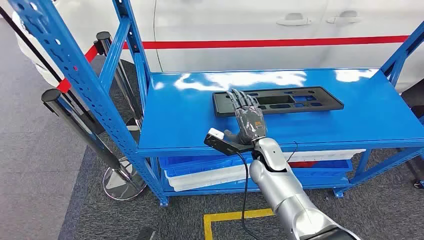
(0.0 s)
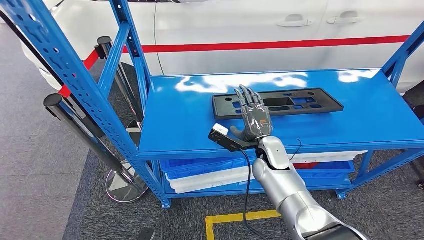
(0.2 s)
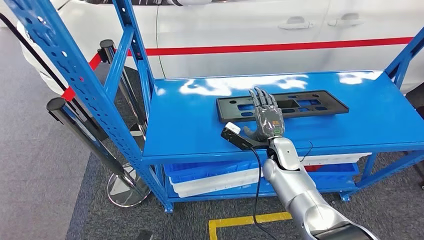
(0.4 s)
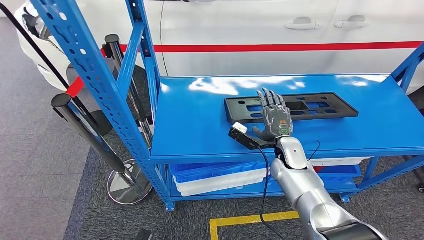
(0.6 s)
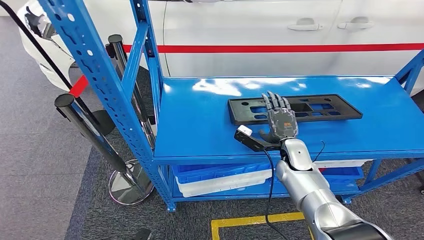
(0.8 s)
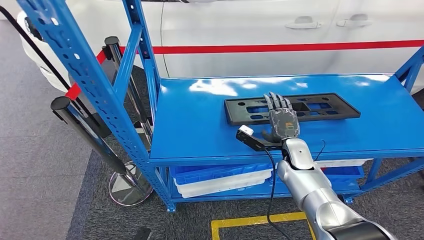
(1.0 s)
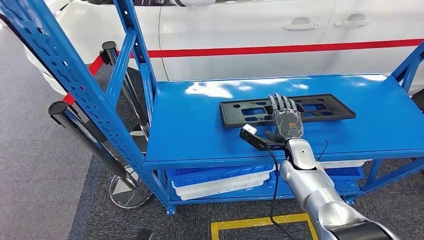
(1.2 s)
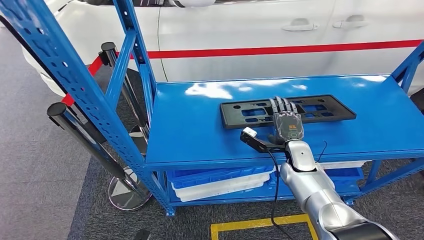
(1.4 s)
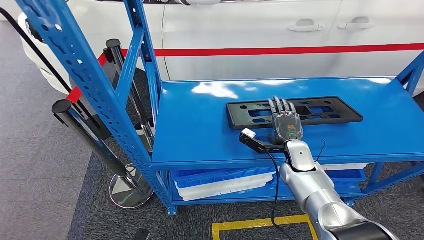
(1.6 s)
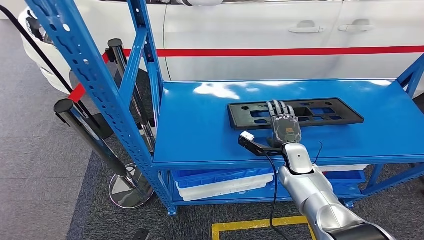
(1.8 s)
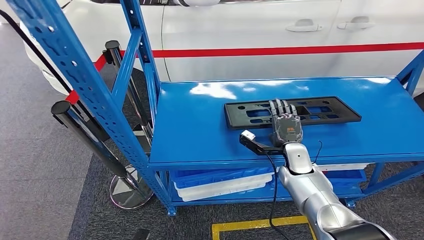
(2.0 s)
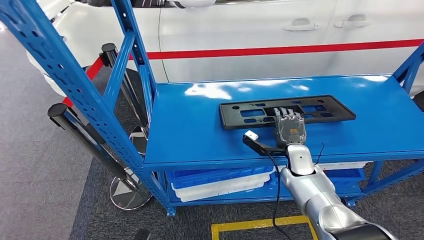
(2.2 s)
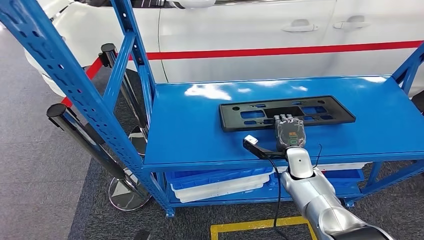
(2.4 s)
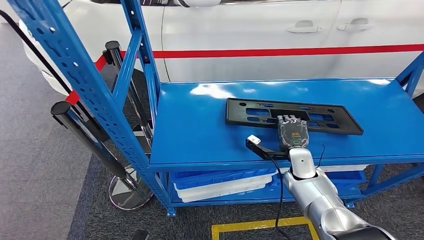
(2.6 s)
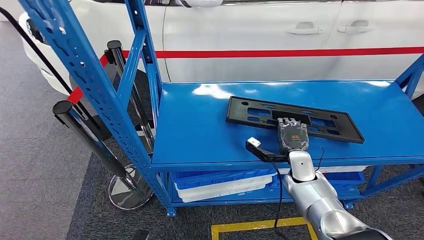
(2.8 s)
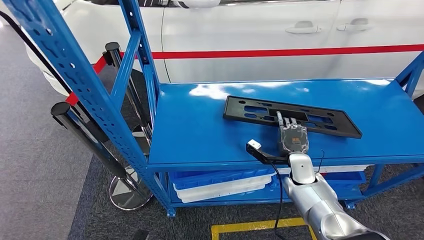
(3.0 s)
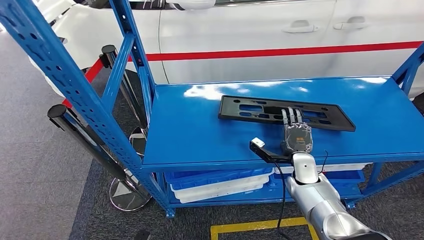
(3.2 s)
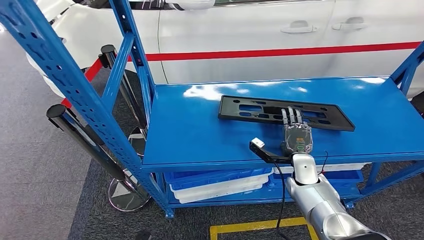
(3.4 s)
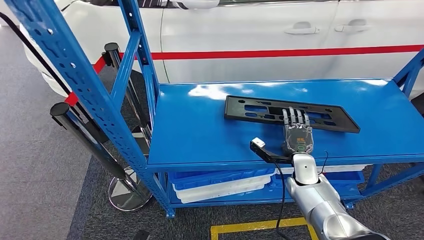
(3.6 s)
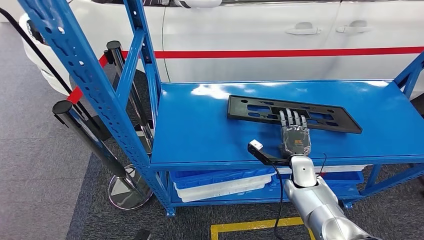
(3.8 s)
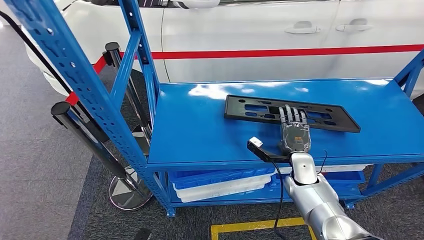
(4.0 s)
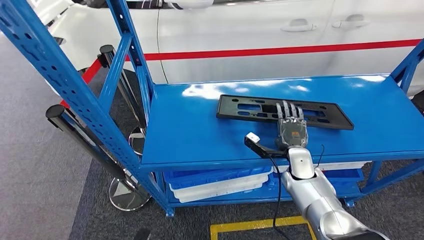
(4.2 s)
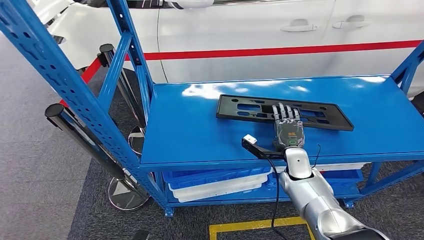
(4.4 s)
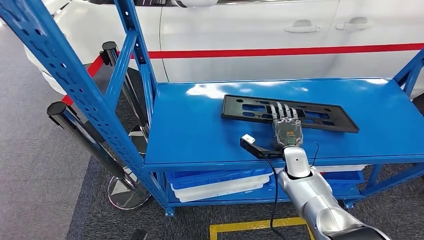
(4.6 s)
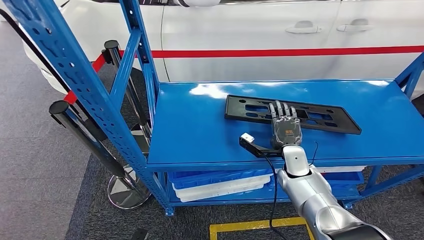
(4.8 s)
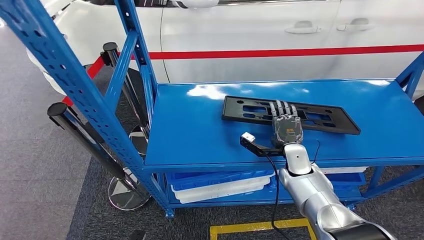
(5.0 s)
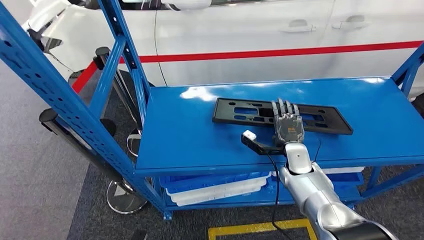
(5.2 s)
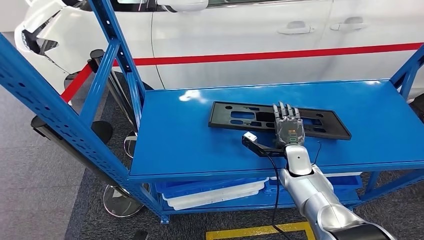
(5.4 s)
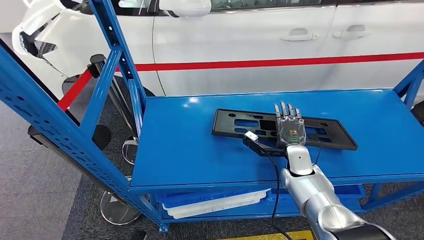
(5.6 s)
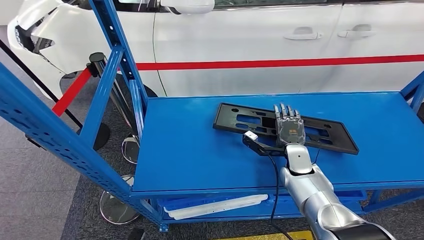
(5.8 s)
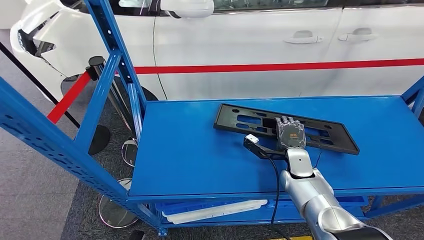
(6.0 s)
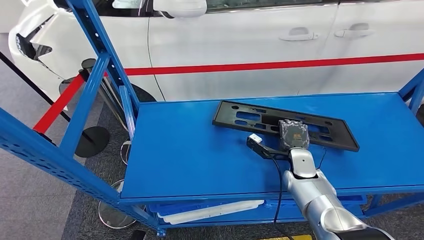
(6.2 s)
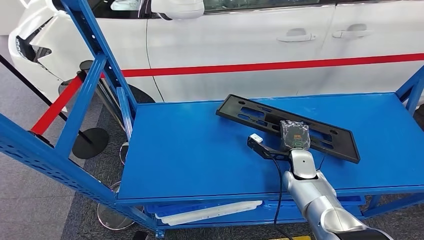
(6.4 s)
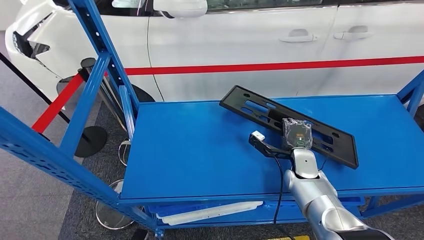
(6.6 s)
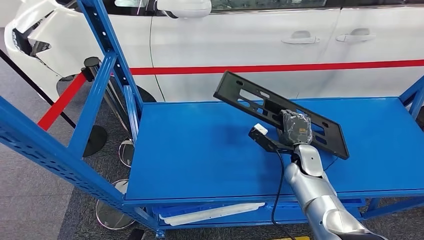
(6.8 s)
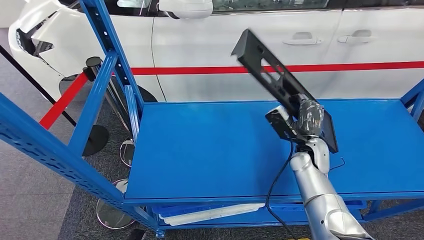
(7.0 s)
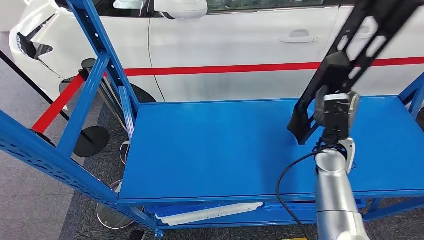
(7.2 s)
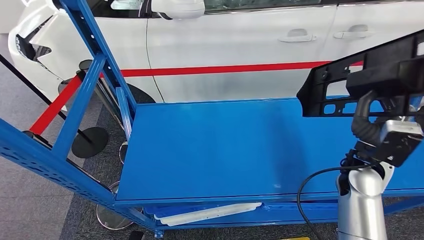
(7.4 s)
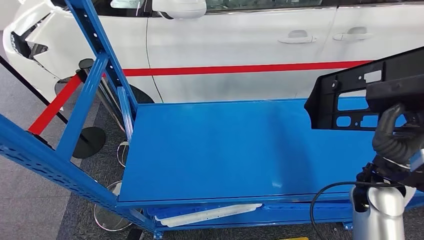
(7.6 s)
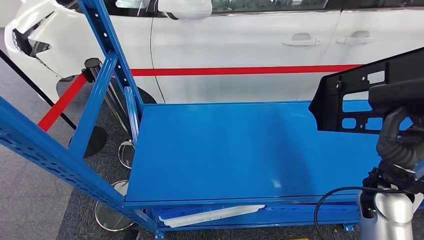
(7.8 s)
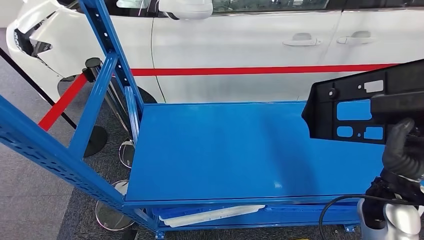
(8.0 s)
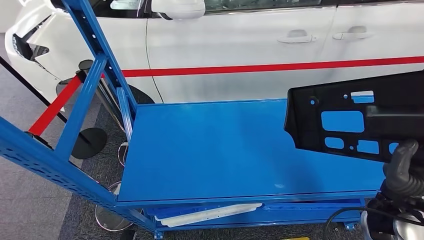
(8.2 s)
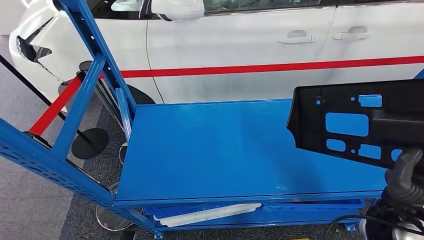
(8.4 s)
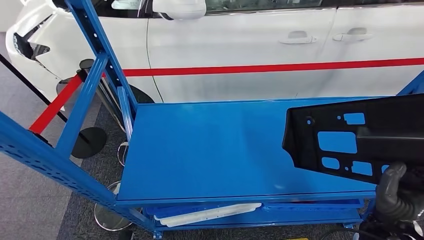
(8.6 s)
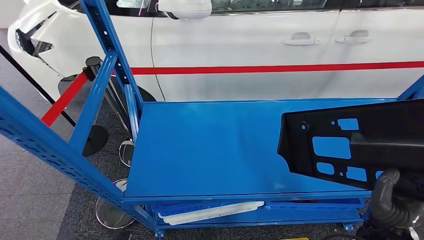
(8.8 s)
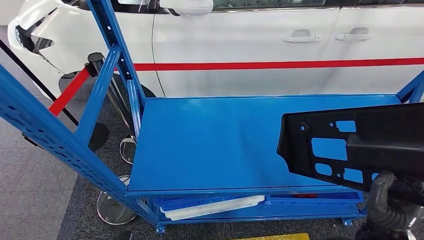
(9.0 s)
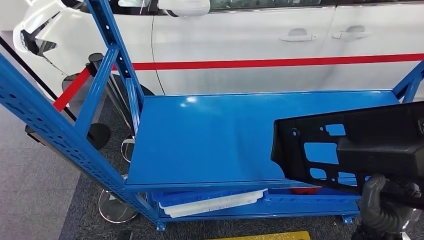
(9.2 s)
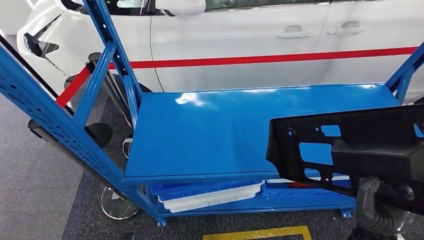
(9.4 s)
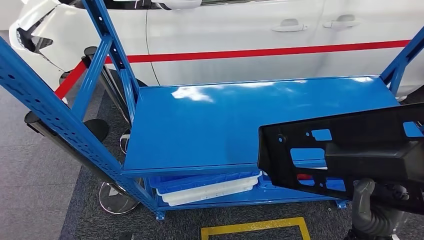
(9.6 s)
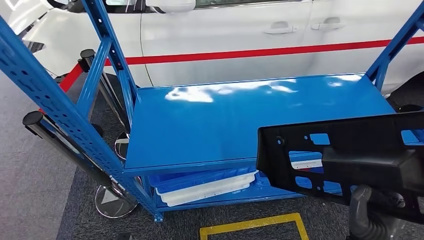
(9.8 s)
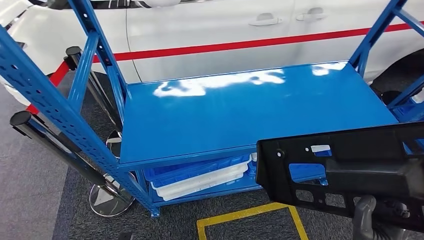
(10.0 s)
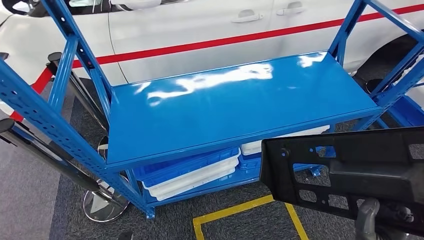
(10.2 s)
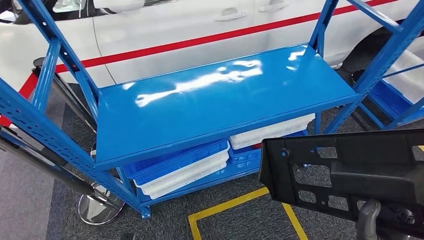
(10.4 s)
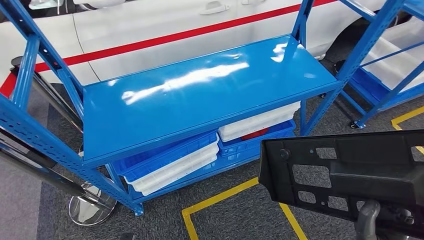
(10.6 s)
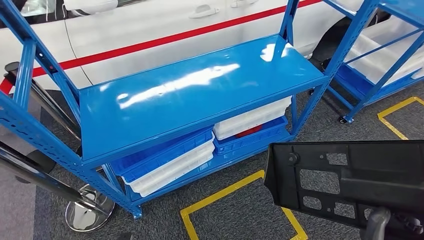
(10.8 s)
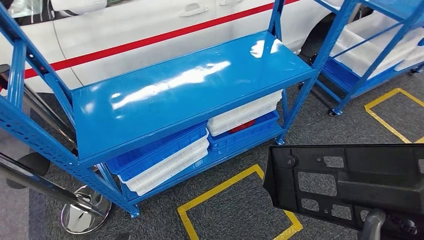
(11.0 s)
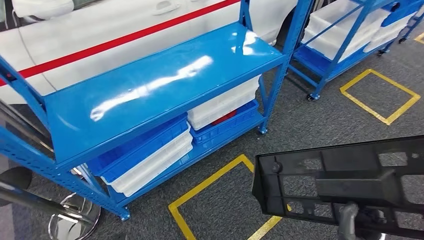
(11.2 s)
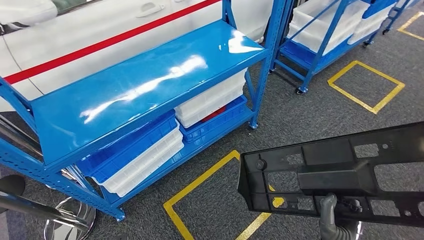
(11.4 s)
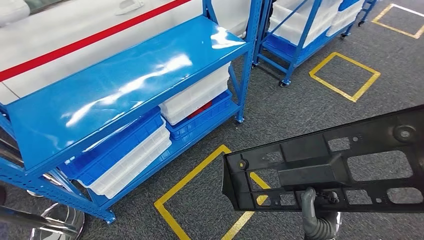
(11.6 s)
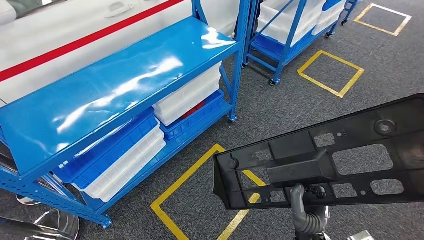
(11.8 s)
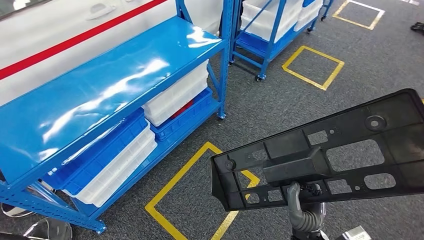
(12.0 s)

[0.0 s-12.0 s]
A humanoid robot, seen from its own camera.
Step, 0.0 to 7.4 s: Pick up the large material from the shelf.

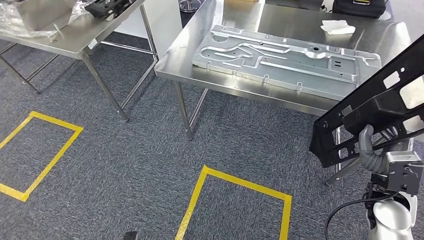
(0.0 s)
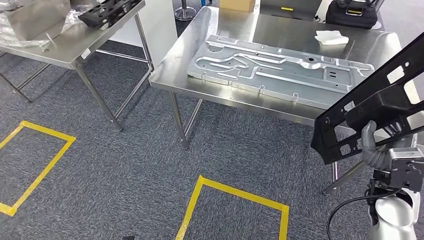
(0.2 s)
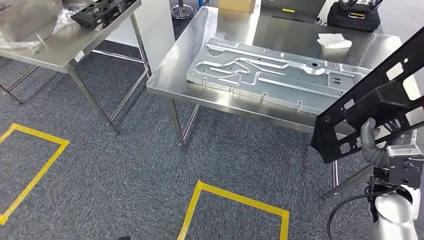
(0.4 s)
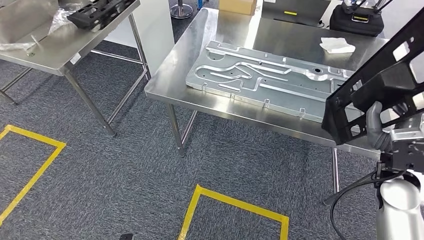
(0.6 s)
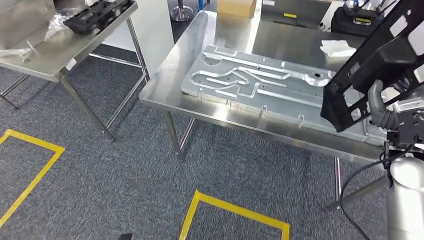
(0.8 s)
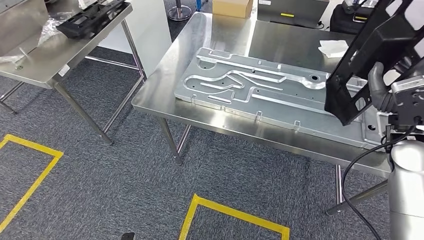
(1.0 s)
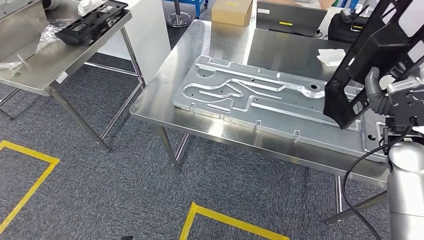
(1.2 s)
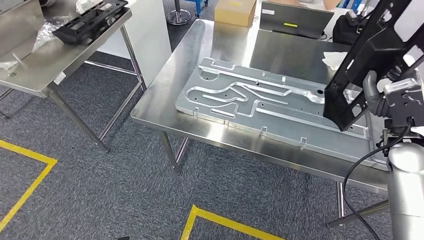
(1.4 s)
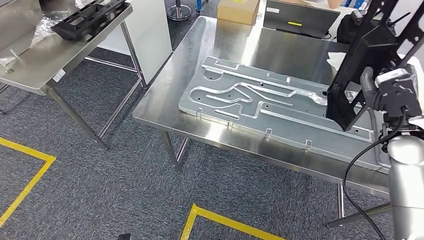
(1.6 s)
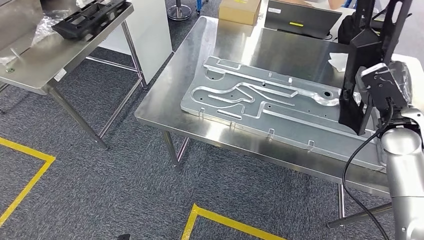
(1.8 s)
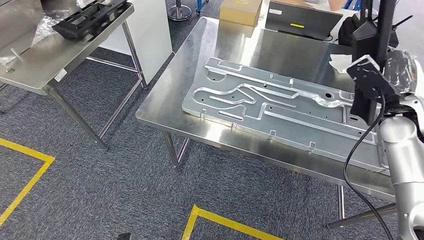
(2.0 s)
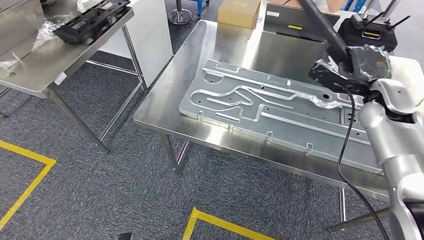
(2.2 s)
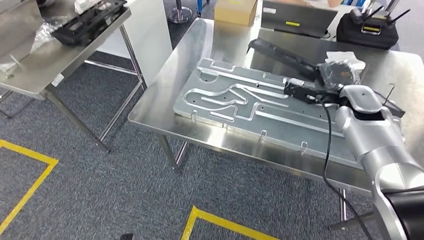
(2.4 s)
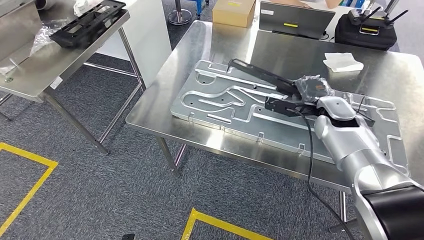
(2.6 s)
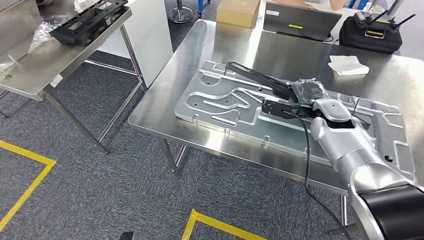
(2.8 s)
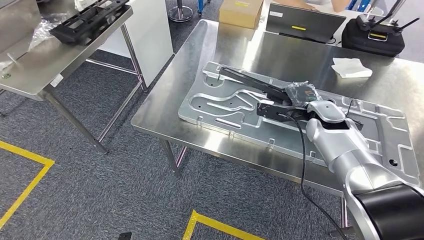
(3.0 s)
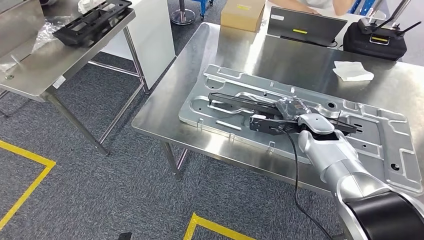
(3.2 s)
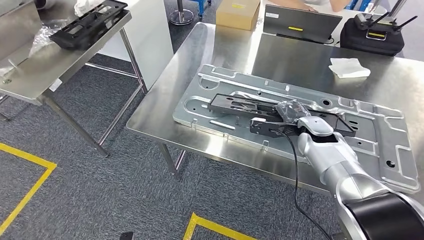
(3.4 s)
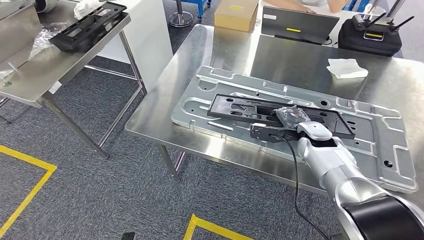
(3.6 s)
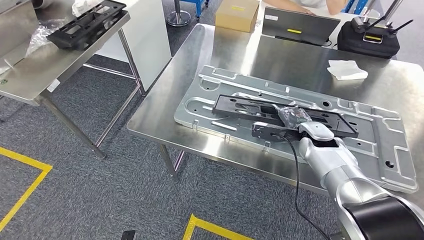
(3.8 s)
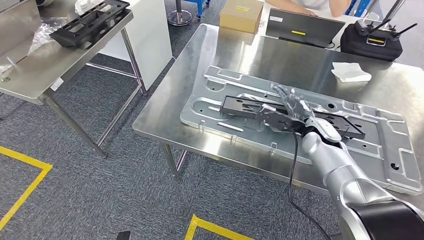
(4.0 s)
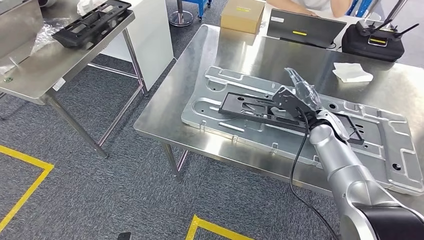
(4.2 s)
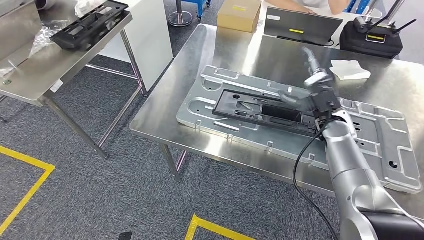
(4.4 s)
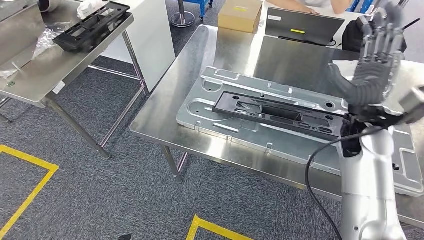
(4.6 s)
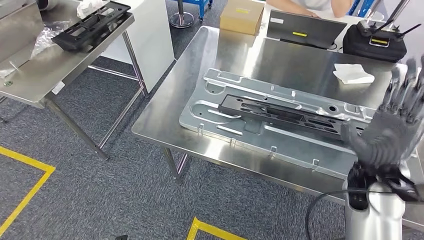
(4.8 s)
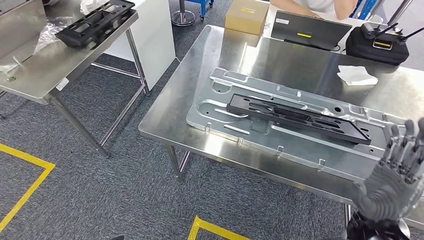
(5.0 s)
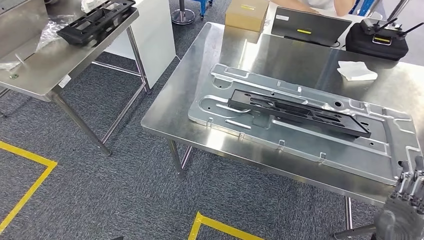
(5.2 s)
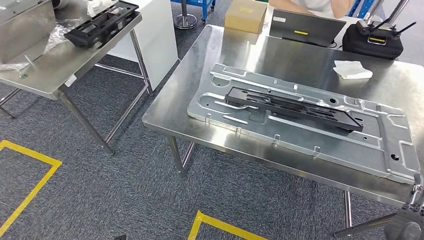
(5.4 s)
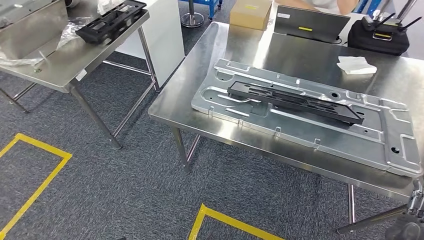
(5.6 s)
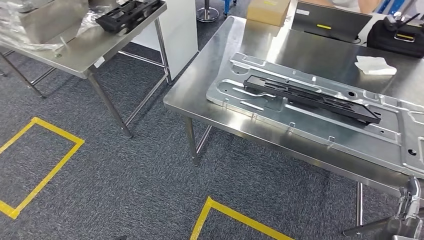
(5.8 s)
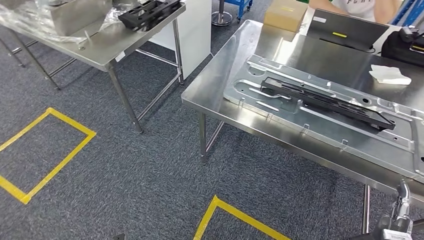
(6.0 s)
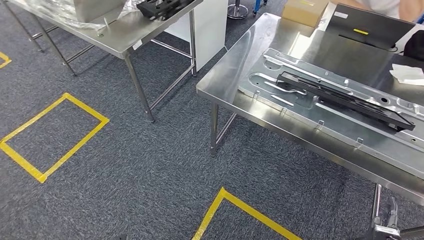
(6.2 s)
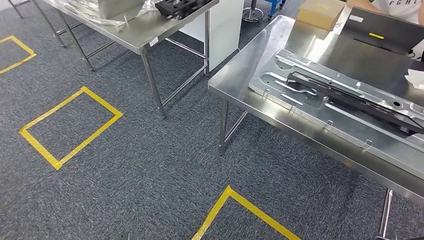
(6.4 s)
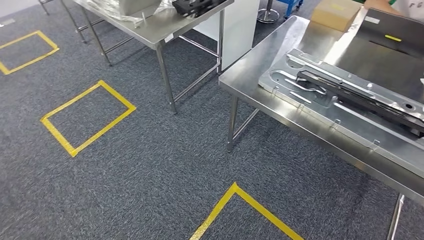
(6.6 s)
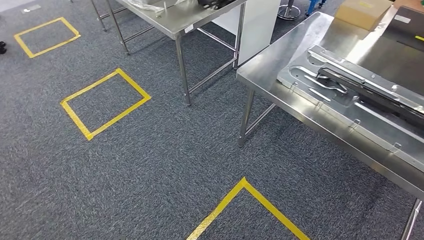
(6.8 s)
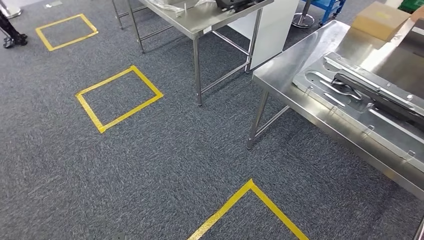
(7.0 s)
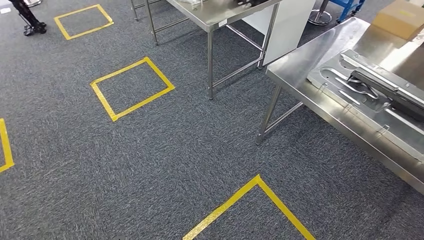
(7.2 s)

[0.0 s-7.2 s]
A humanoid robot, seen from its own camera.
Step, 0.4 to 4.2 s: Insert the large material into the corresponding slot on the workbench.
